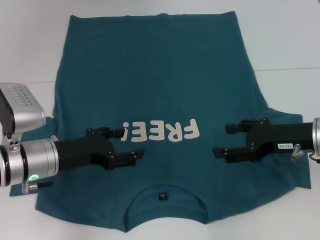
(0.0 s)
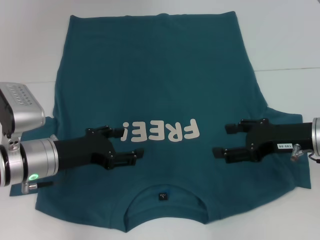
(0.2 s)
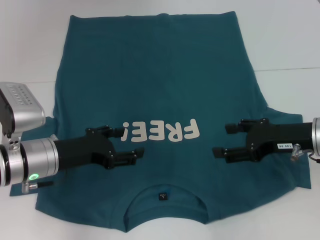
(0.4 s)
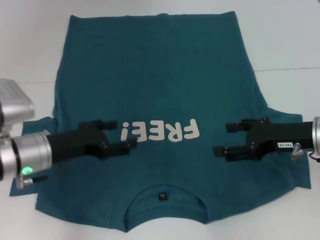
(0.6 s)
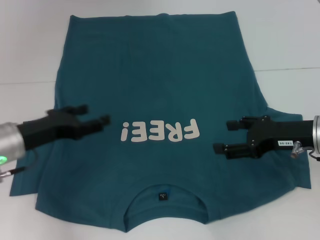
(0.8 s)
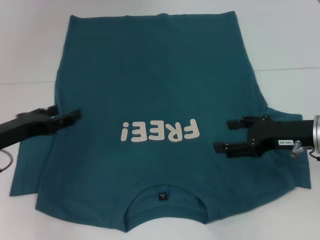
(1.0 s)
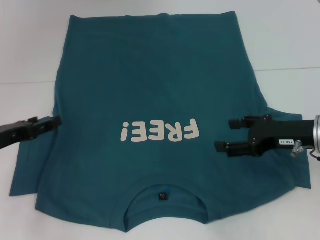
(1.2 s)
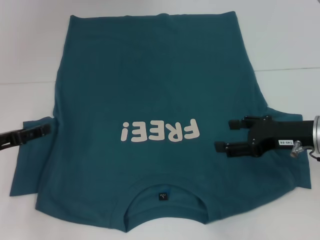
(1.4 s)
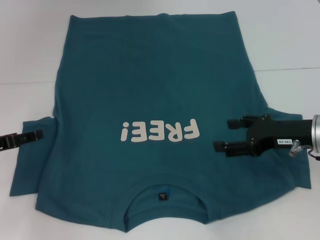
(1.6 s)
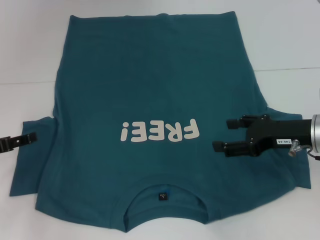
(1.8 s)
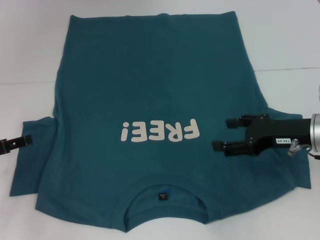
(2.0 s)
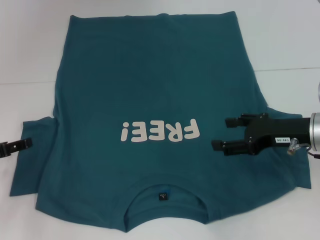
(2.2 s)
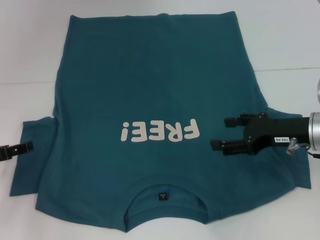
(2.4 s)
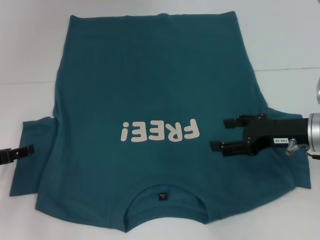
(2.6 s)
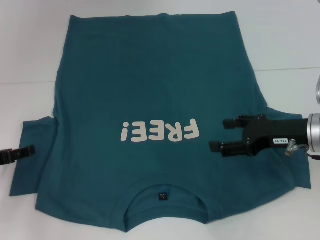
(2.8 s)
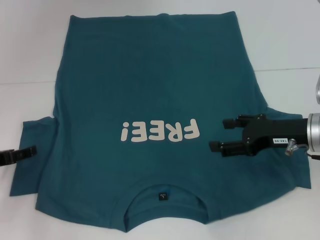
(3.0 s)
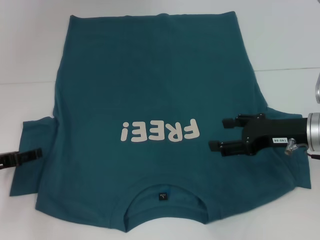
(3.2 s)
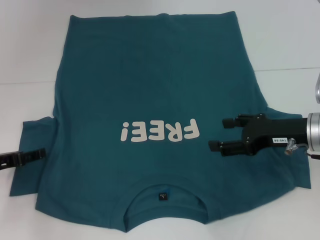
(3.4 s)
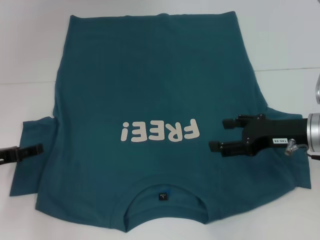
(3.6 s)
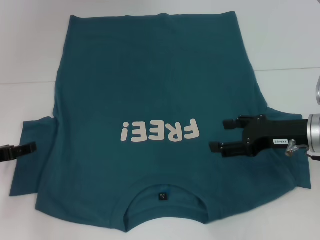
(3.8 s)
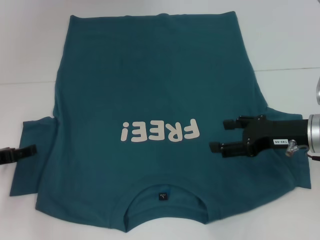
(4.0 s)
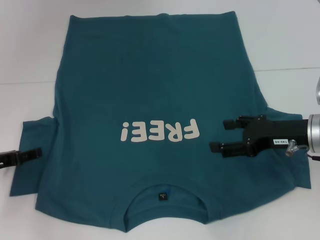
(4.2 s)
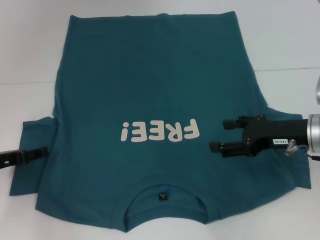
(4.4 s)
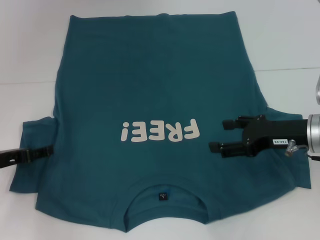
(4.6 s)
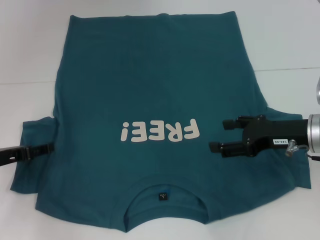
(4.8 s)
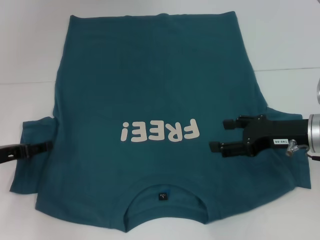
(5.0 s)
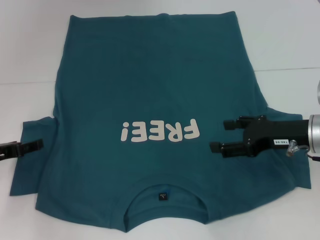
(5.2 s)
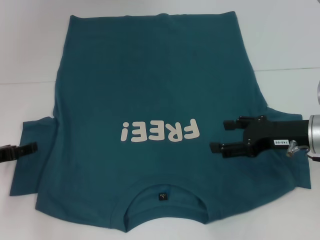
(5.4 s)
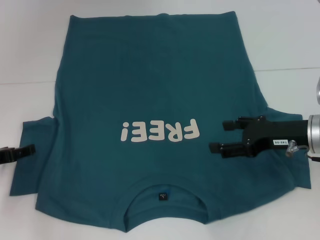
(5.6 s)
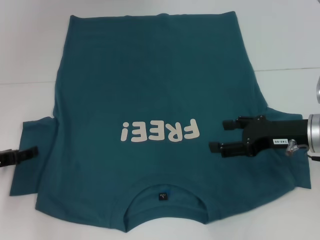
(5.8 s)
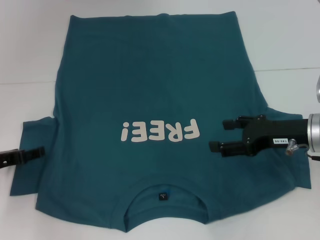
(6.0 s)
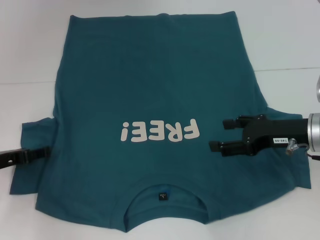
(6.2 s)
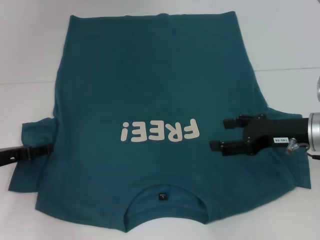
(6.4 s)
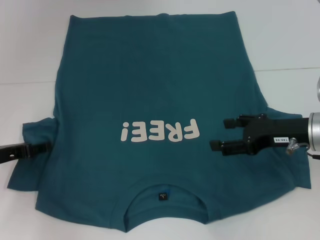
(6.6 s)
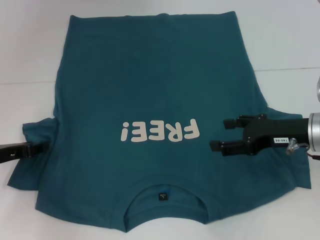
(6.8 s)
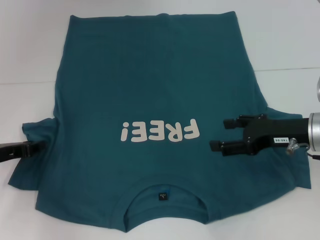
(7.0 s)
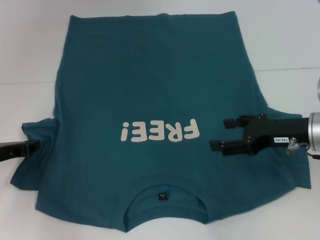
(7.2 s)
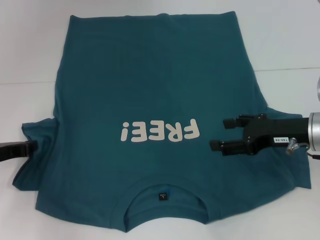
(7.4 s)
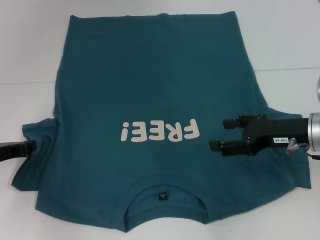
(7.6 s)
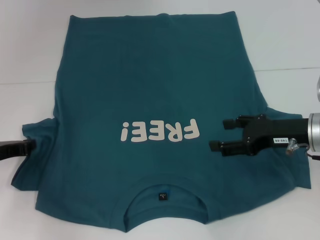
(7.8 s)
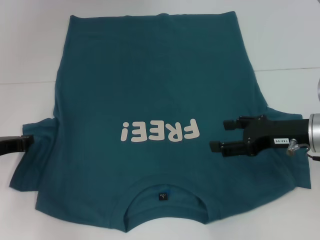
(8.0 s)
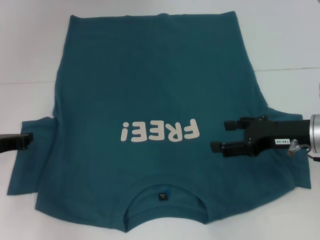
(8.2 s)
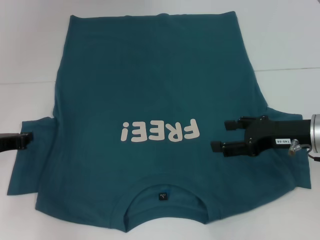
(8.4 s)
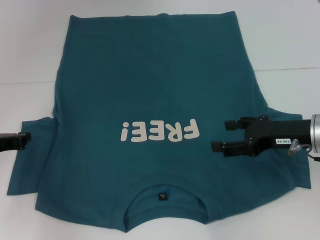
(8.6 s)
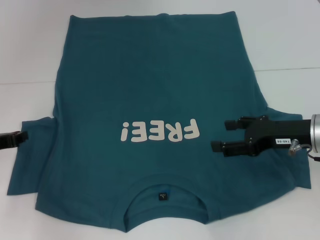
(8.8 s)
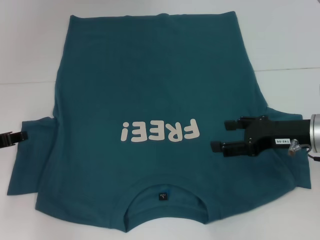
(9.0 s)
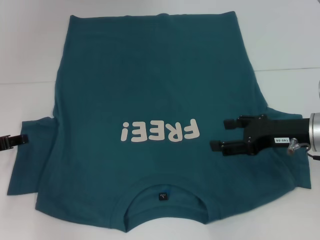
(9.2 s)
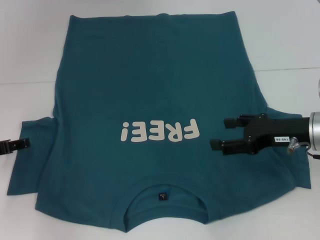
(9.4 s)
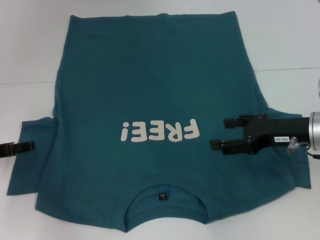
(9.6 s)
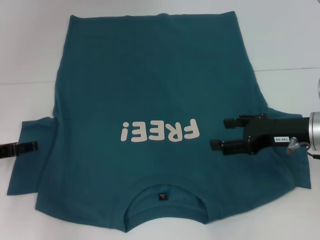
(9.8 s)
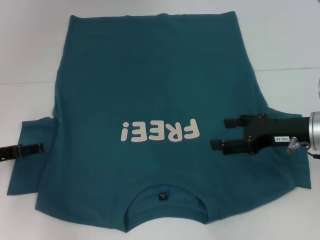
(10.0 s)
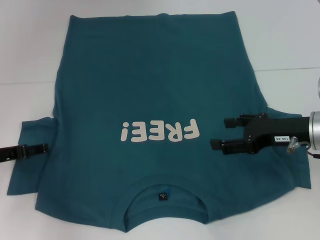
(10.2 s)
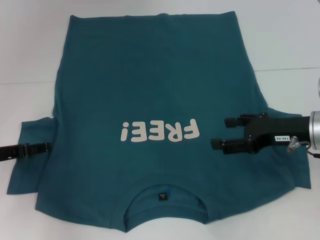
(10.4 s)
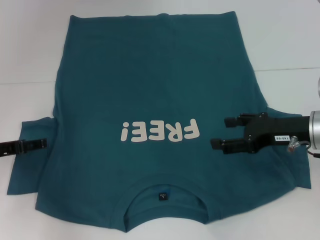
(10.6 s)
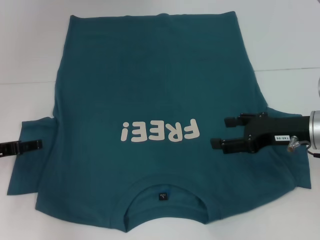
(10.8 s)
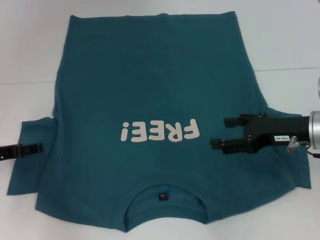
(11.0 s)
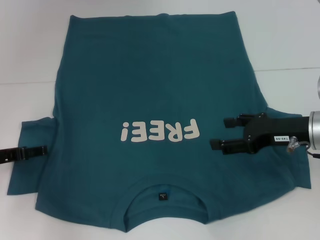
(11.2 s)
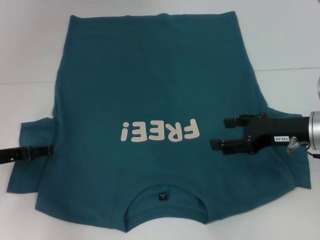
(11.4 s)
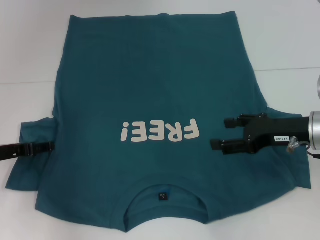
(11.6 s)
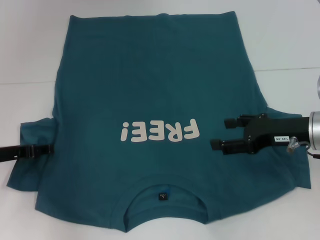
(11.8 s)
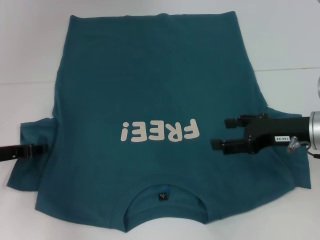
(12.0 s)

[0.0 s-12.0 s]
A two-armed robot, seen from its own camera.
0.0 to 1.6 s: The left gripper travels to the left by roughly 15 cm.
1.6 to 3.0 s: There are only small adjustments of the grippers.
4.4 to 6.0 s: Both grippers stay about where they are.
6.0 to 7.6 s: The left gripper closes up.
7.6 to 9.0 s: The grippers stay close to where they were, moving slightly.
9.0 to 10.4 s: The left gripper opens up.
10.4 to 12.0 s: Neither gripper changes place.

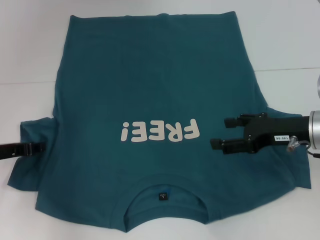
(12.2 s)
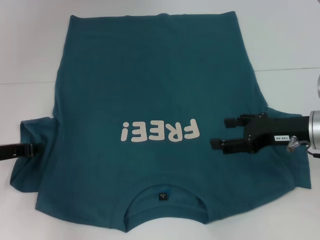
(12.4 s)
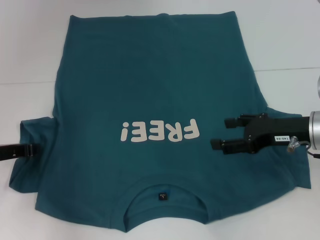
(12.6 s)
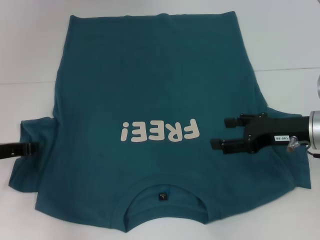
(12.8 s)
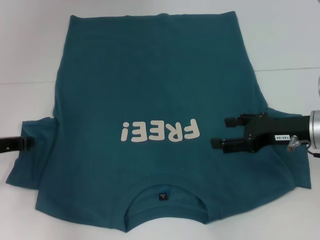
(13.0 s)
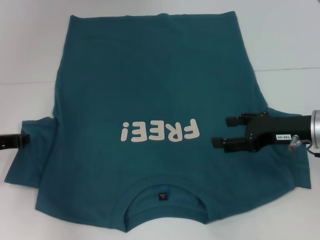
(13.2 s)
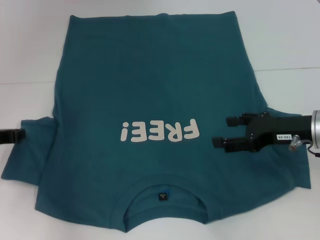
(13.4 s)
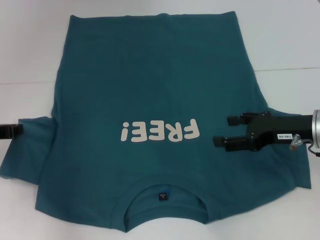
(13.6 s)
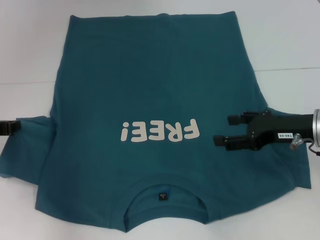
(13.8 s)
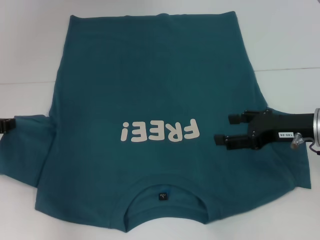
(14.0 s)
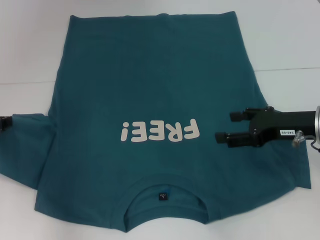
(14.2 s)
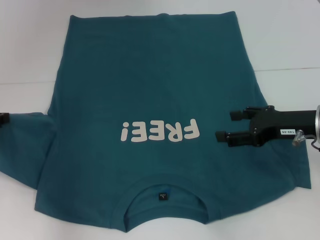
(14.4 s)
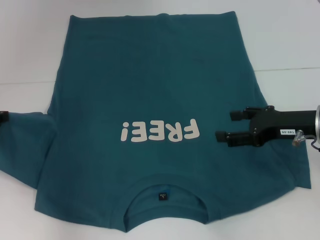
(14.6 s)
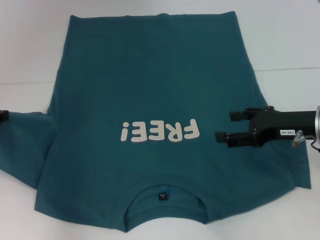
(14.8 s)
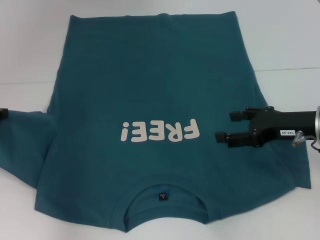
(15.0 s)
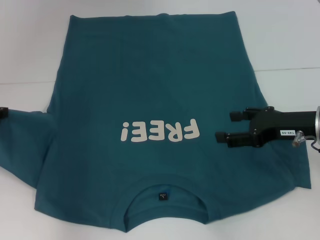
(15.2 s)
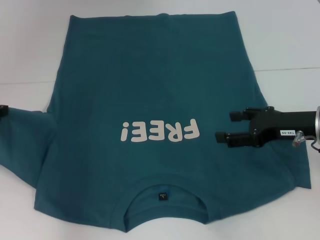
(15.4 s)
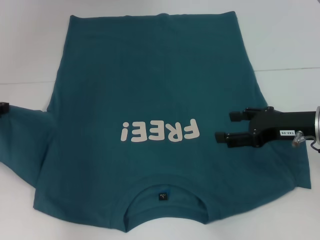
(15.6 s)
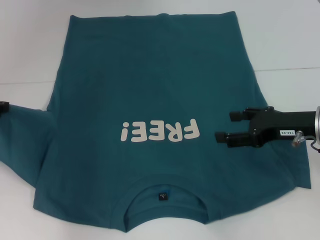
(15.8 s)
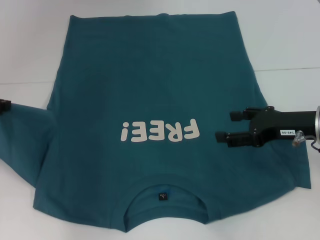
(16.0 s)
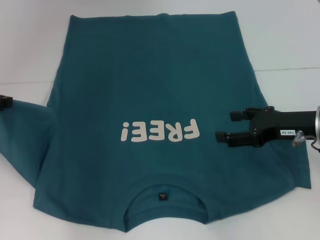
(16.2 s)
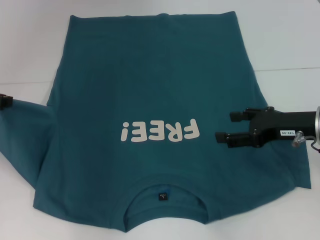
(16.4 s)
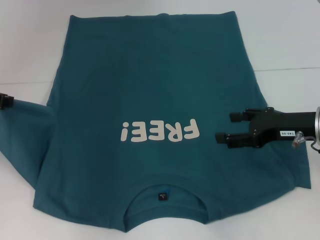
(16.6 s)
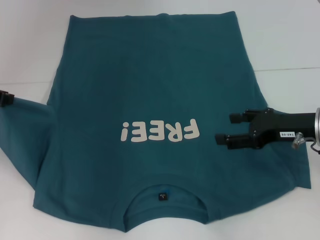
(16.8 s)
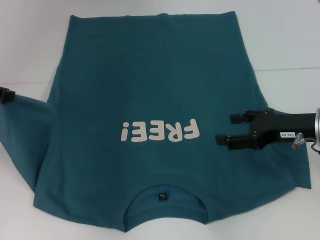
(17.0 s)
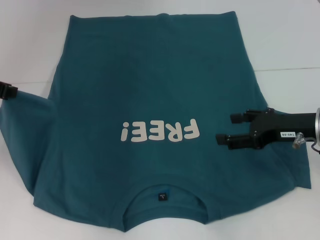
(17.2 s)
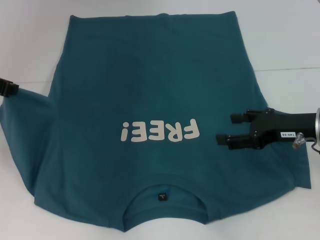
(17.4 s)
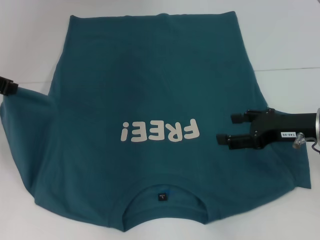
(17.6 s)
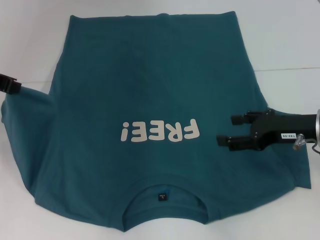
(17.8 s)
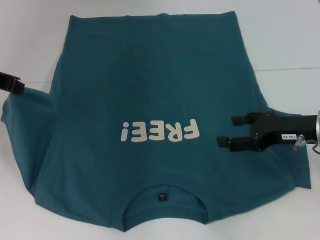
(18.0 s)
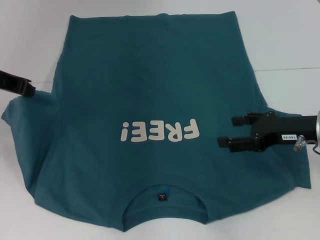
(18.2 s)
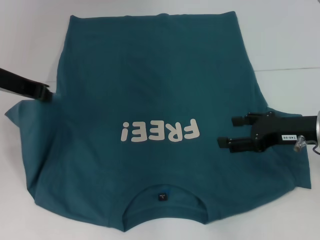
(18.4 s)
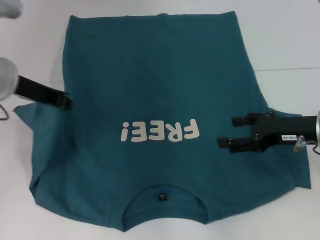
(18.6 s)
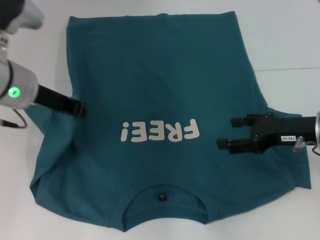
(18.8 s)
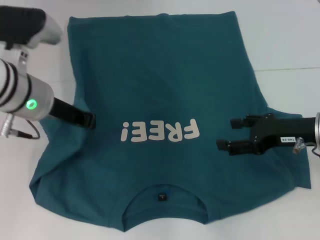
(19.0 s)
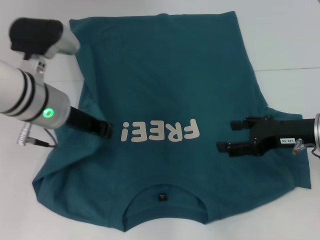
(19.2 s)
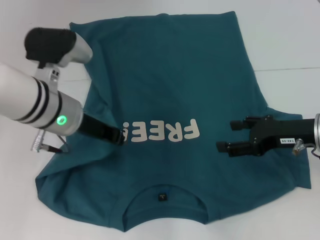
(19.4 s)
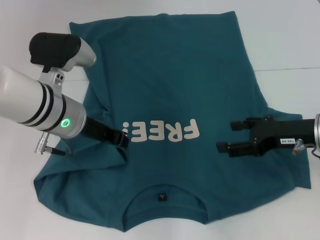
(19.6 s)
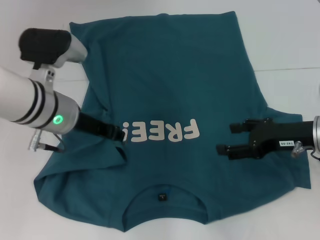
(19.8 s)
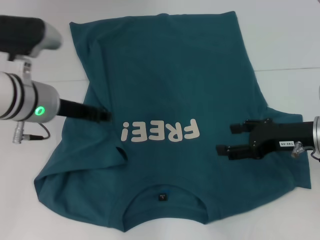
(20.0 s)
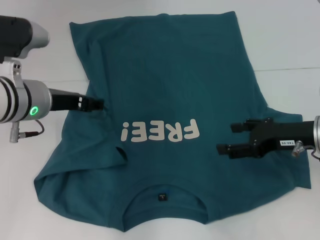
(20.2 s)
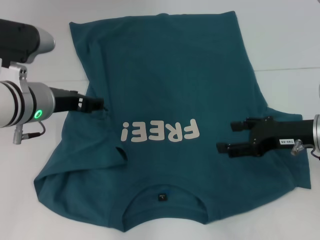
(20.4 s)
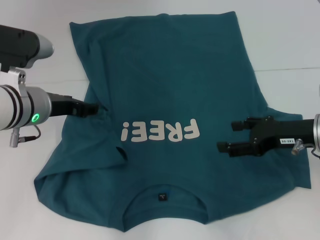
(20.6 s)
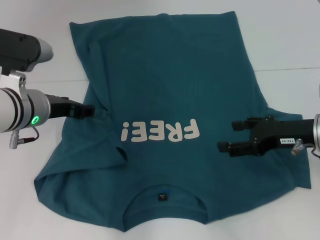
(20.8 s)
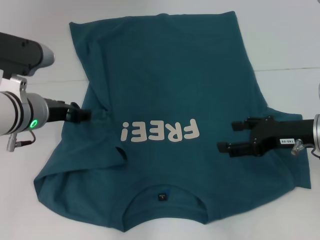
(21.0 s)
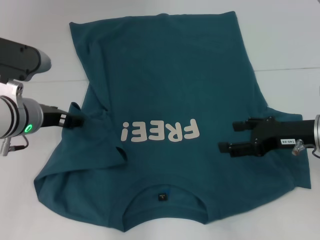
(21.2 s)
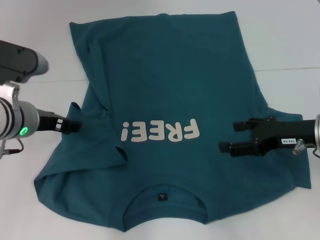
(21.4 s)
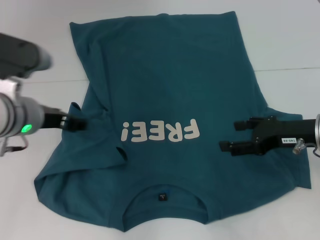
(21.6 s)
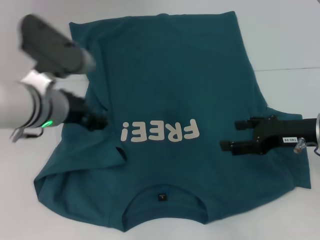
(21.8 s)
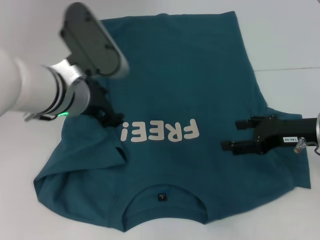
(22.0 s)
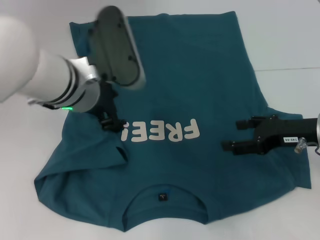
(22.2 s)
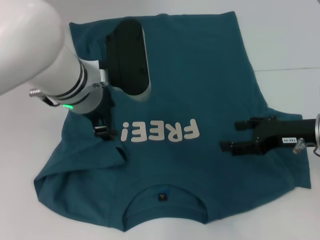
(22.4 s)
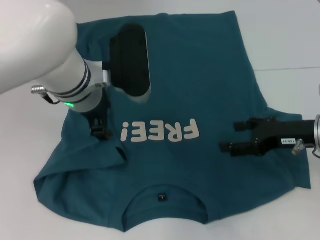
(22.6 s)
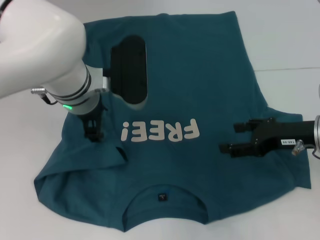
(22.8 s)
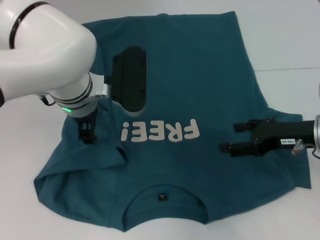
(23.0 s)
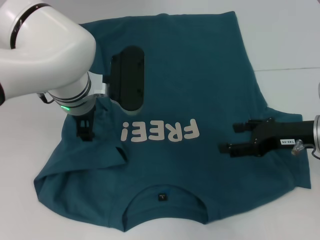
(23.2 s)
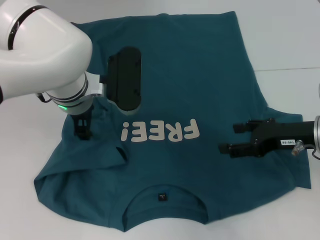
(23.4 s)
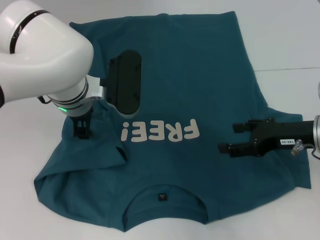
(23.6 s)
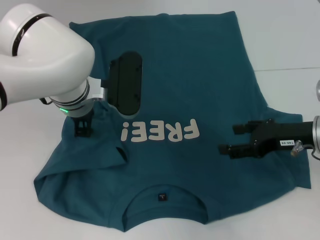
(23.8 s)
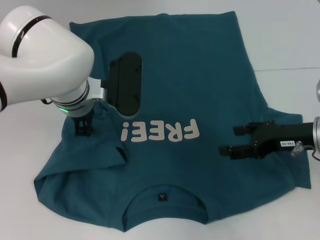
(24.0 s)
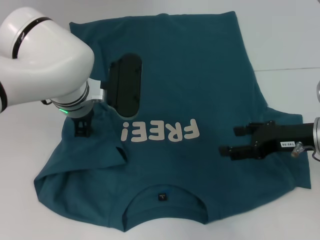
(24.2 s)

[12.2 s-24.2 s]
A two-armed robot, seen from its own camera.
12.2 to 13.8 s: The left gripper closes up.
13.8 to 15.2 s: The grippers stay close to where they were, moving slightly.
15.2 to 16.6 s: The left gripper changes place by approximately 5 cm.
16.6 to 18.2 s: The left gripper ends up some 5 cm from where it was.
18.2 to 19.8 s: The left gripper heads to the right and downward, covering approximately 15 cm.
19.8 to 21.2 s: The left gripper changes place by some 5 cm, and opens.
21.2 to 22.6 s: The left gripper is displaced to the right and upward by roughly 10 cm.
22.6 to 24.2 s: The left gripper ends up some 5 cm from where it was.
